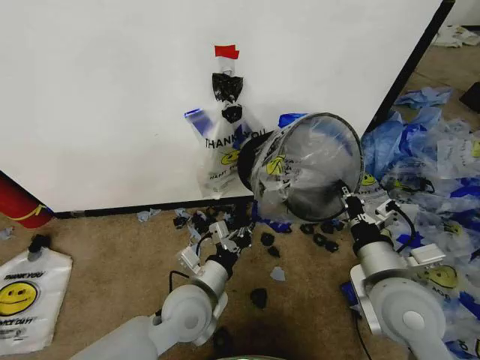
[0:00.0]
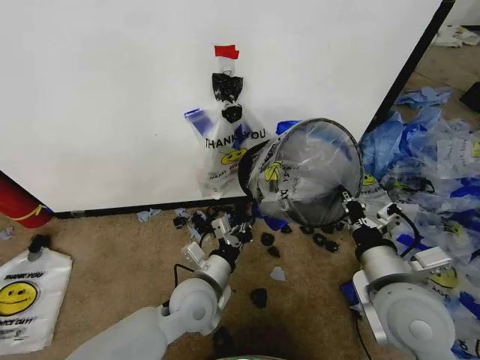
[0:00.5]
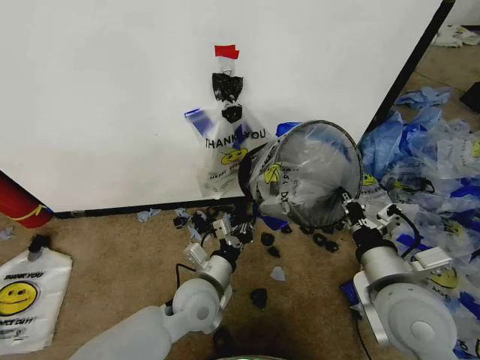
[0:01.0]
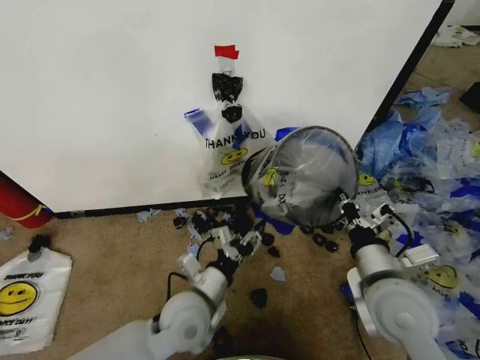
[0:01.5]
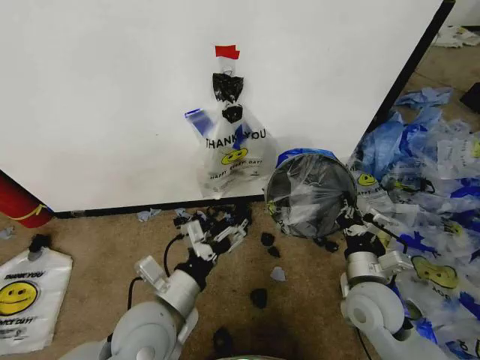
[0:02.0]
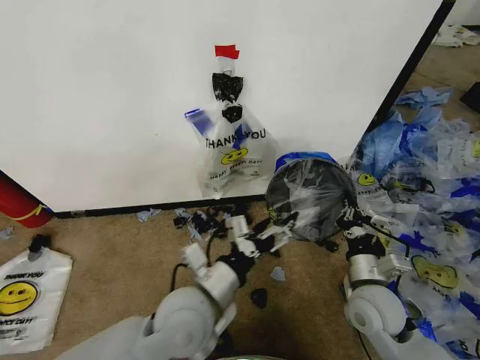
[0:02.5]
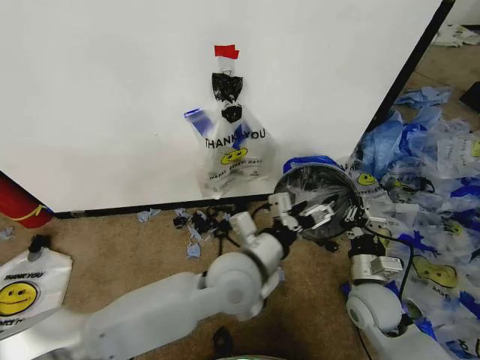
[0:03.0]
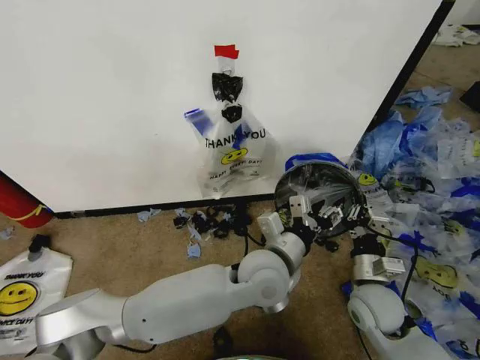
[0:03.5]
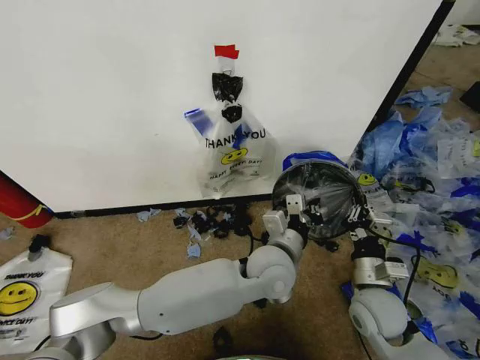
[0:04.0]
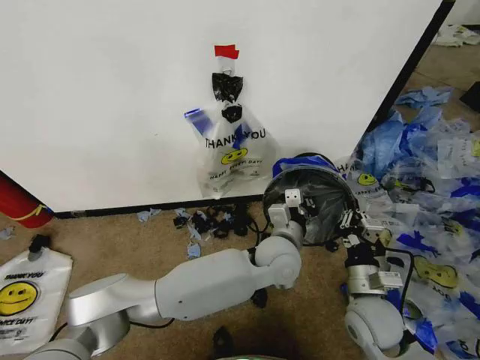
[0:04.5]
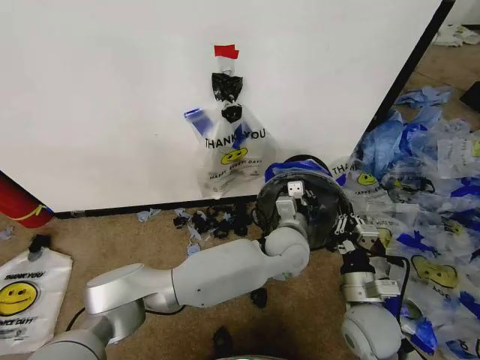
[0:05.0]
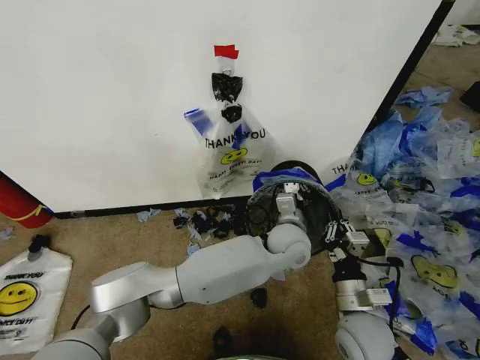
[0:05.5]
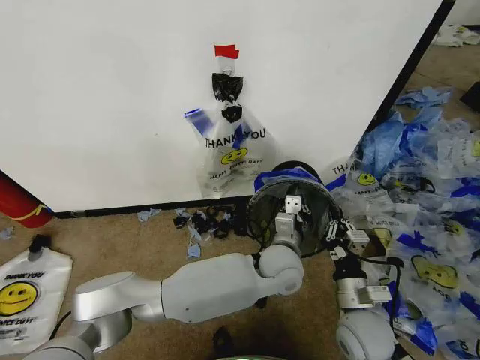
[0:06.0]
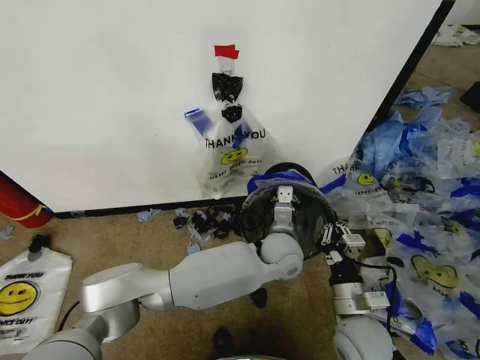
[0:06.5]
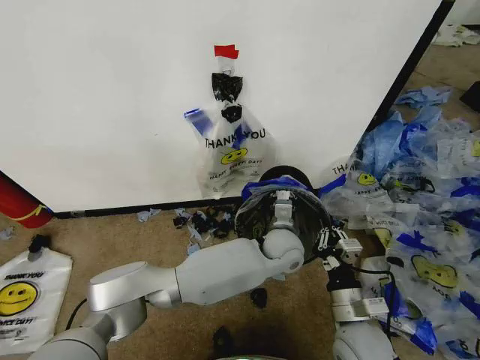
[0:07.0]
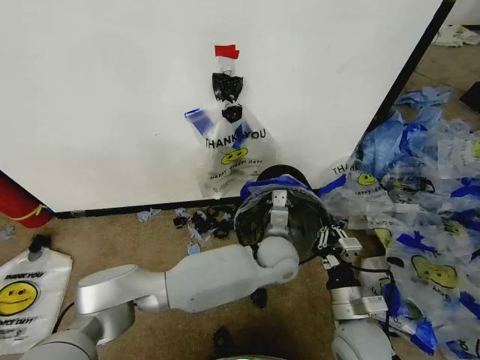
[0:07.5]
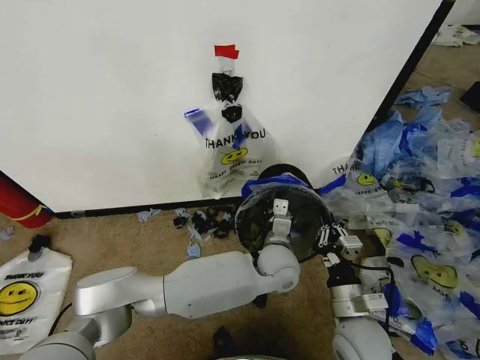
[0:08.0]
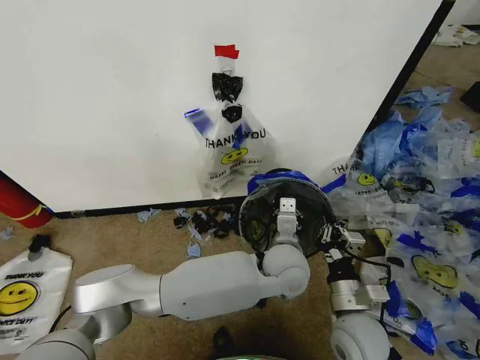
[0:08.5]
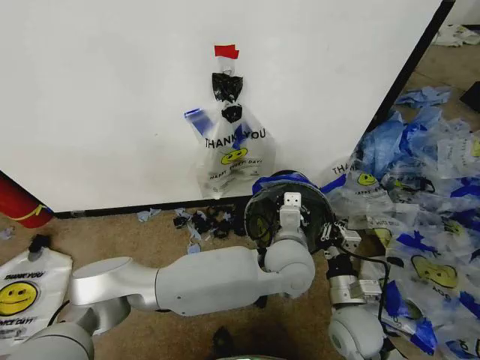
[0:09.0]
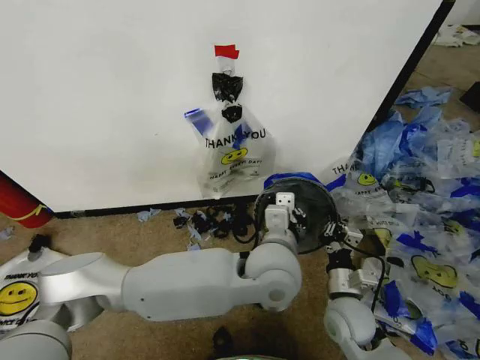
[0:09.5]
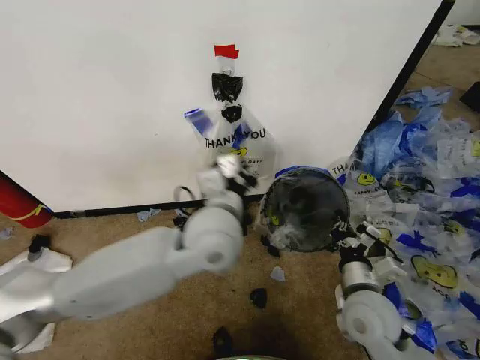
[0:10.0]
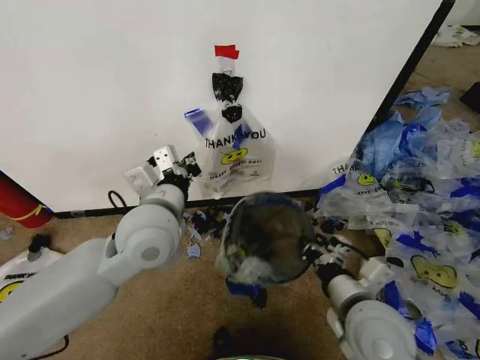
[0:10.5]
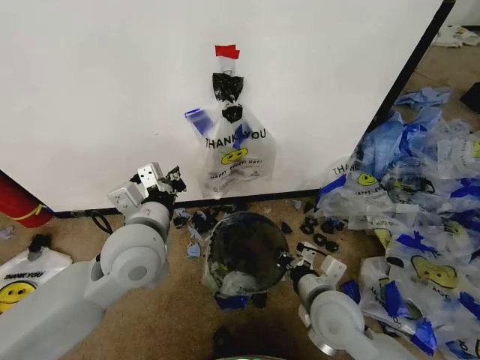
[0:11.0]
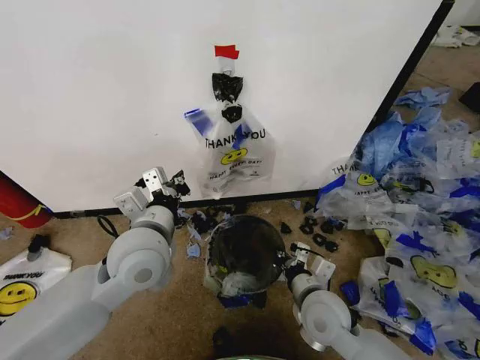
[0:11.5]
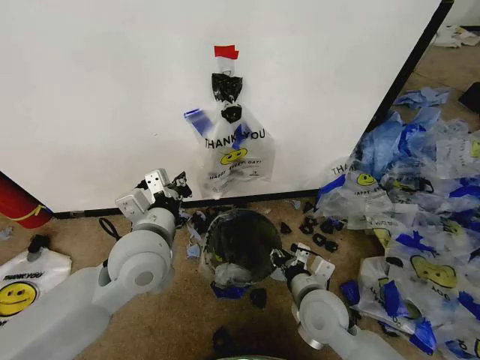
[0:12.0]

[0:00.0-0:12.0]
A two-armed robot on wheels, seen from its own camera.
Task of the whole recording: Pick up the garbage bag from the wall and place it over the trash bin.
0:00.0 to 0:02.0: The left gripper travels backward by roughly 5 cm, and opens up; the right gripper moves downward, some 10 cm.
0:02.0 to 0:04.0: The left gripper moves to the right and forward, about 25 cm, and closes.
0:04.0 to 0:06.0: The right gripper ends up about 5 cm from where it was.
0:06.0 to 0:08.0: The grippers move only a little.
0:08.0 to 0:10.0: The right gripper moves roughly 5 cm, while the left gripper heads upward and to the left, covering approximately 20 cm.
0:10.0 to 0:12.0: The left gripper heads to the left, covering about 10 cm; the right gripper shifts about 10 cm to the left, travels upward and back again, some 5 cm each way, and opens its fingers.

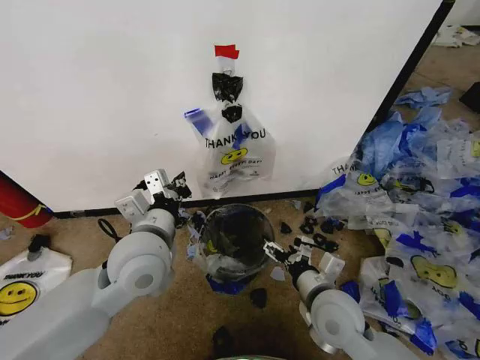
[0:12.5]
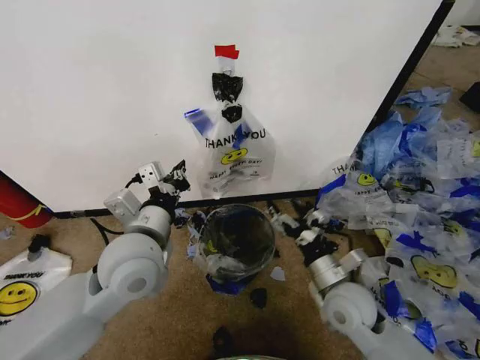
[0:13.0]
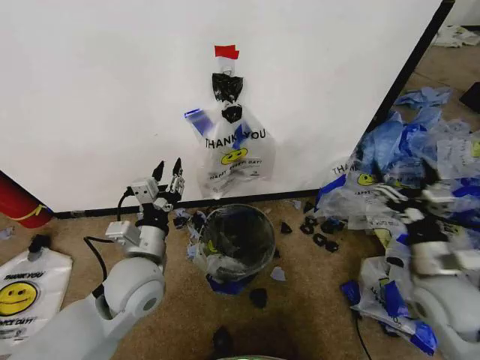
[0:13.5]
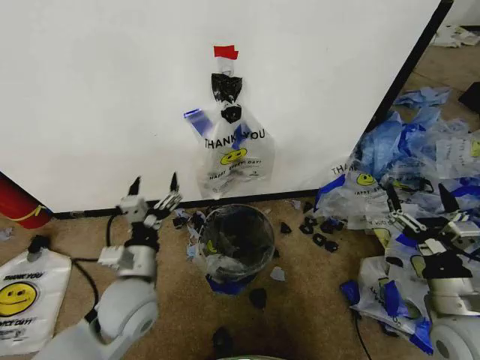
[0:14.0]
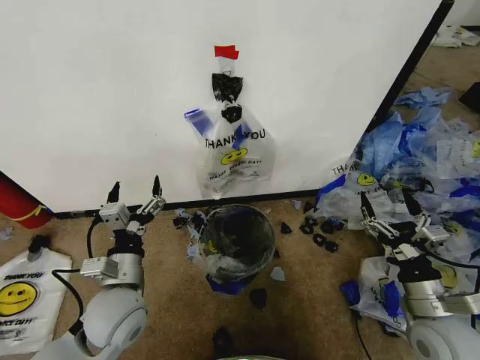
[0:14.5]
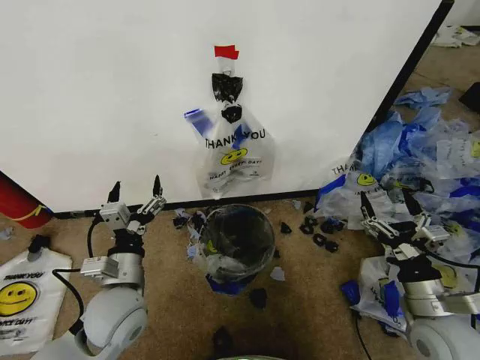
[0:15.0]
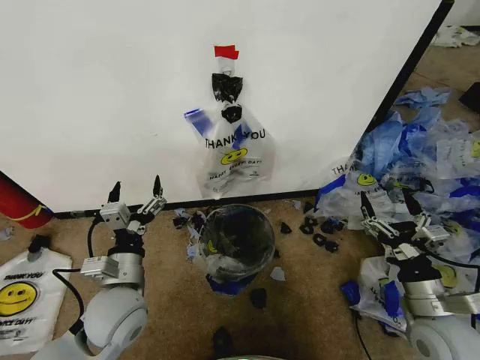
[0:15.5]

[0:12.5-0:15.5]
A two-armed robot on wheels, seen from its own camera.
Task of the whole recording: Pick up the garbage bag from the wall and place it over the trash bin.
0:12.5 to 0:14.0: The right gripper moves to the right, roughly 20 cm. The left gripper is displaced downward by approximately 10 cm, and opens.
0:14.0 to 0:15.5: There are only small adjustments of the grippers.

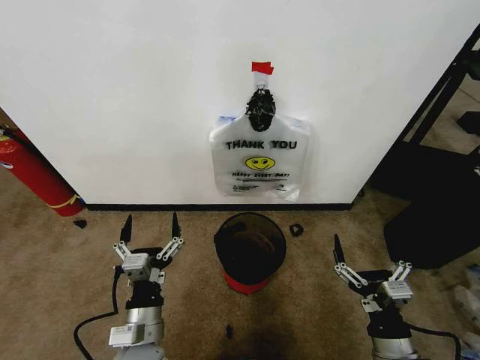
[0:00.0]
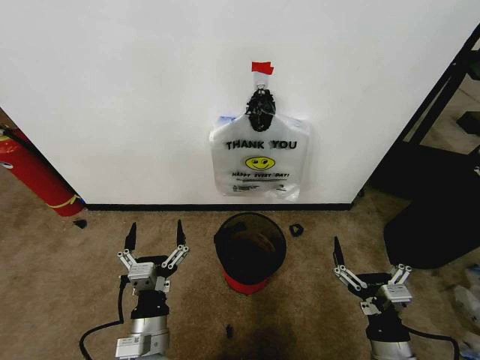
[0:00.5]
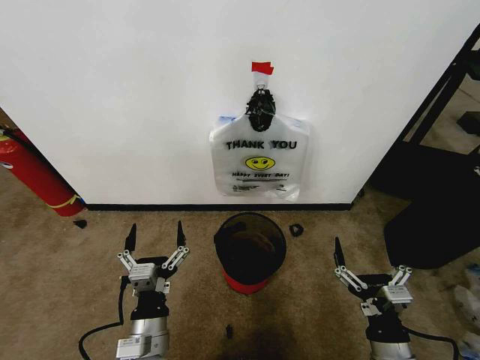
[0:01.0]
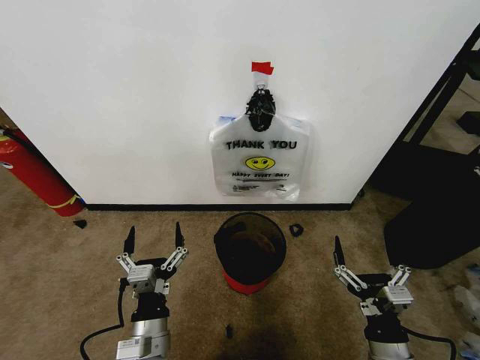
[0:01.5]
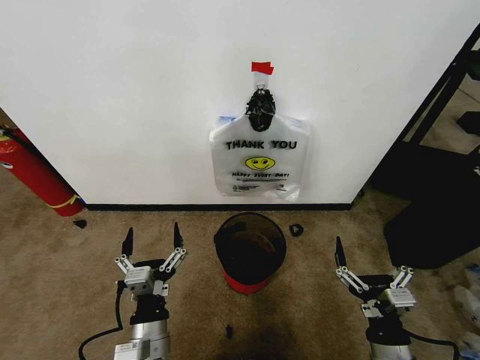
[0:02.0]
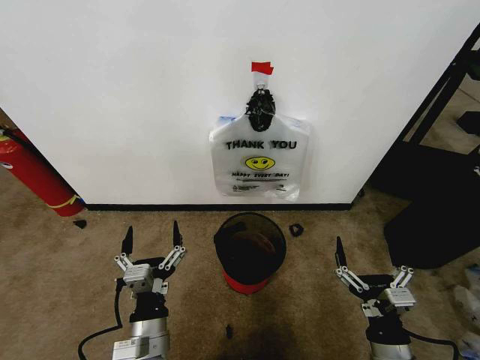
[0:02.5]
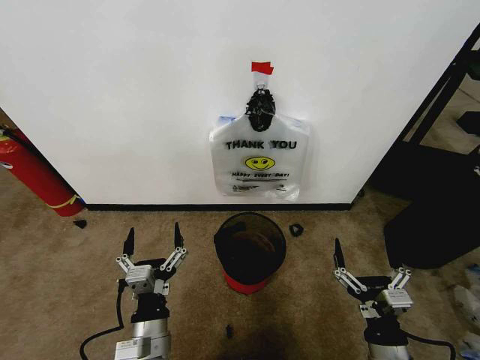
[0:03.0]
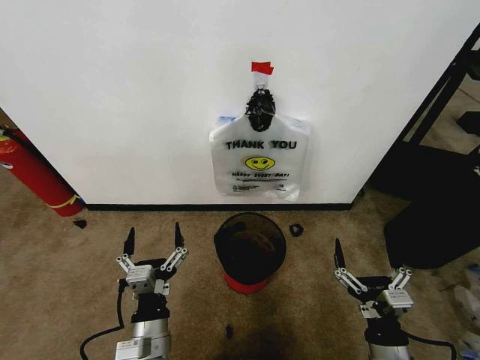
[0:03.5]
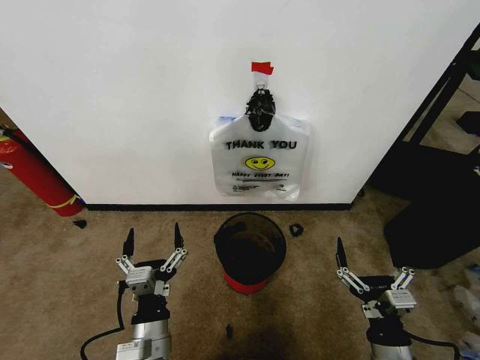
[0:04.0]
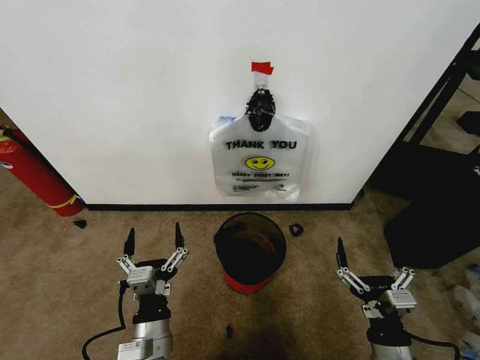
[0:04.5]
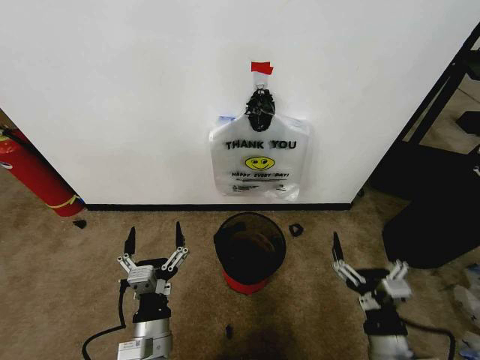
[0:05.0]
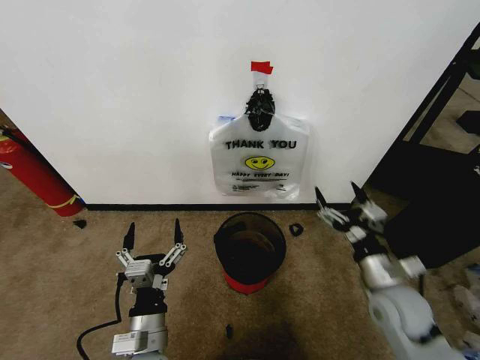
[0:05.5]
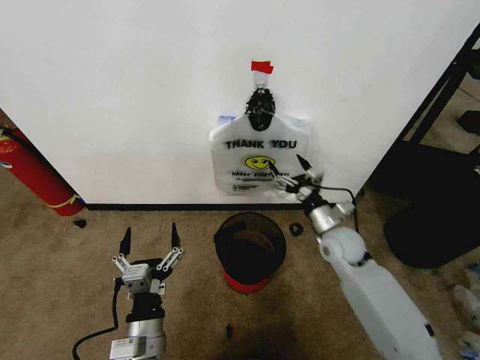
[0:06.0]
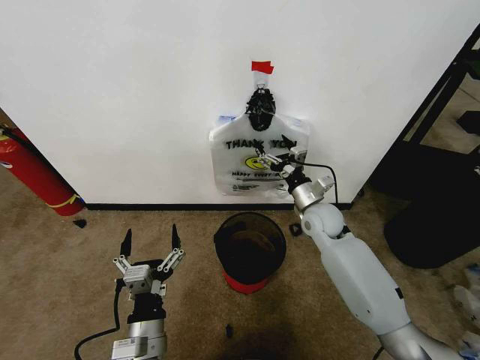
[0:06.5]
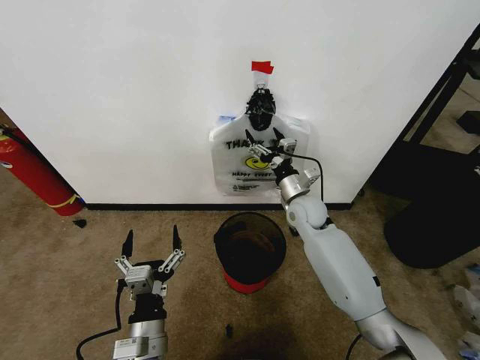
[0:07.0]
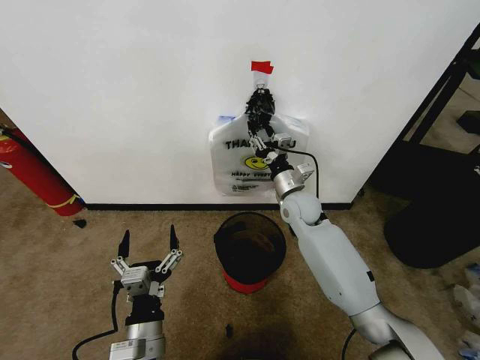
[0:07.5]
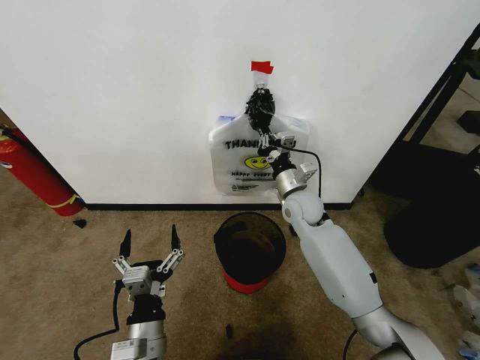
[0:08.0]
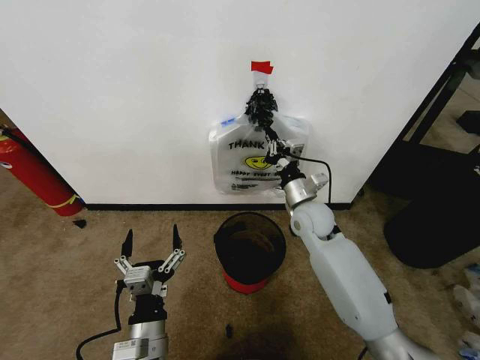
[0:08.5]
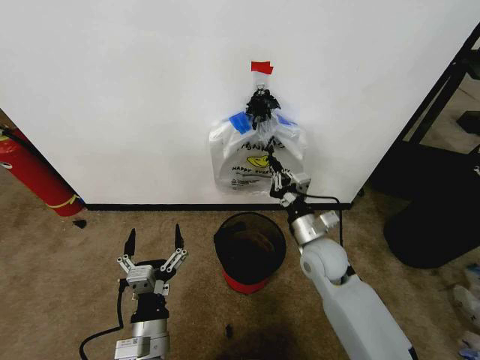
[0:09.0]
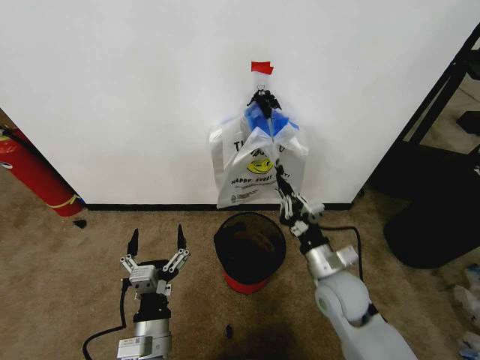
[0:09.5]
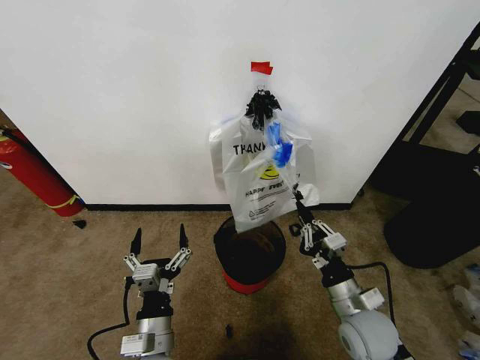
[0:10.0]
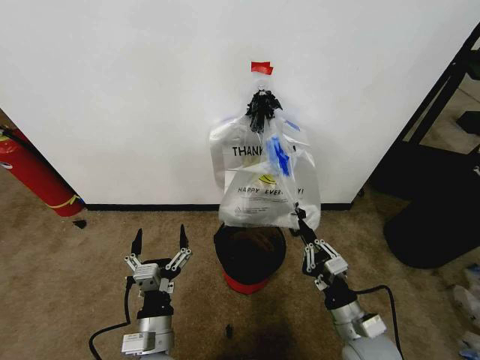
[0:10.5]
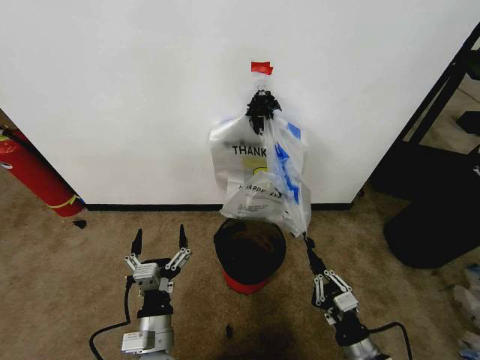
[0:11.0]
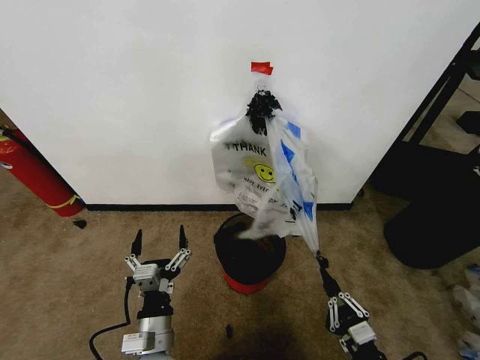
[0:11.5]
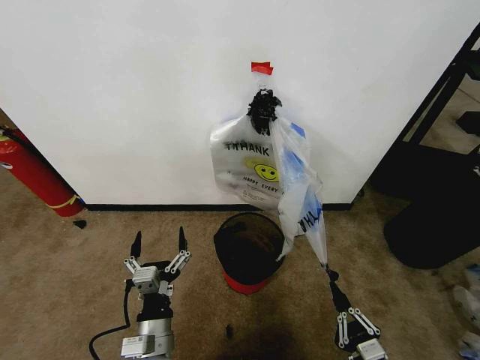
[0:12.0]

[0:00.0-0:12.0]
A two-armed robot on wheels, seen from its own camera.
Task of the whole recording: Pick up the garbage bag from the wall and place it over the trash bin.
0:02.0 to 0:04.0: The two grippers keep their place.
0:04.0 to 0:06.0: The right gripper moves forward, approximately 30 cm.
0:06.0 to 0:08.0: The right gripper shifts approximately 10 cm to the left and forward, and closes its fingers.
0:08.0 to 0:10.0: The right gripper shifts some 25 cm backward.
0:10.0 to 0:12.0: The right gripper moves backward and downward, approximately 20 cm.
